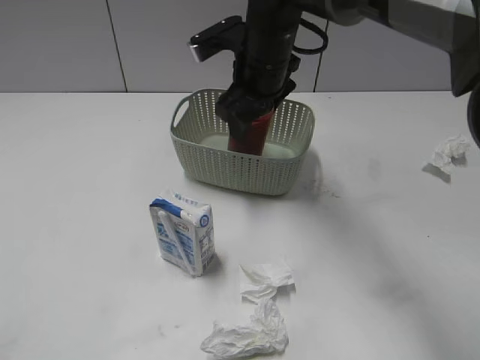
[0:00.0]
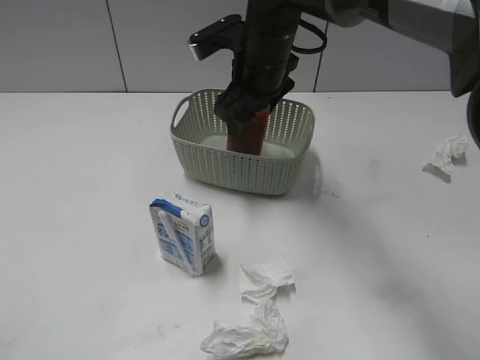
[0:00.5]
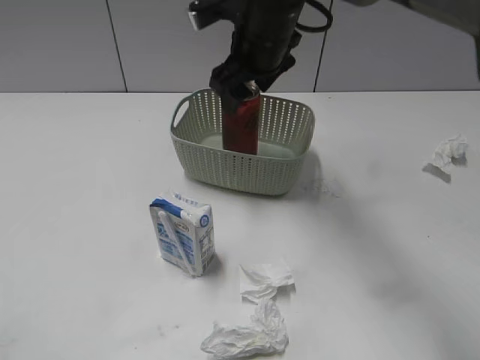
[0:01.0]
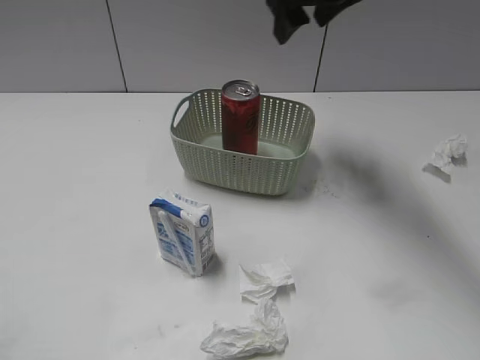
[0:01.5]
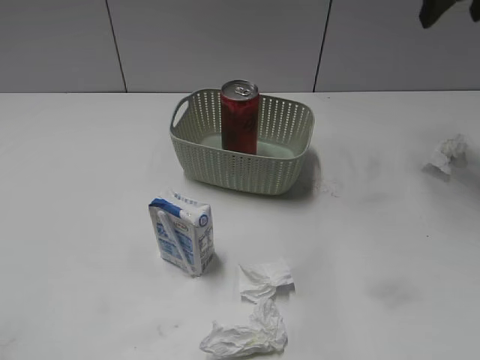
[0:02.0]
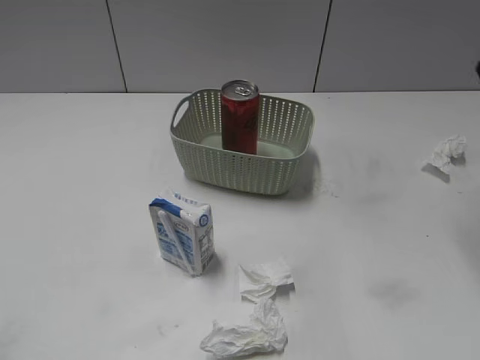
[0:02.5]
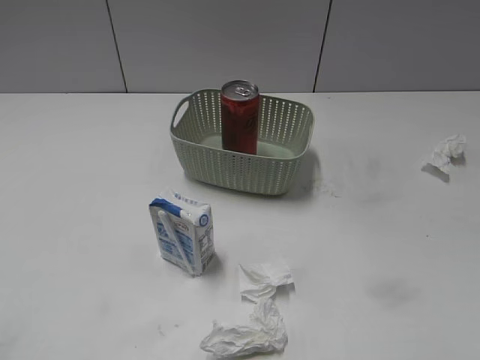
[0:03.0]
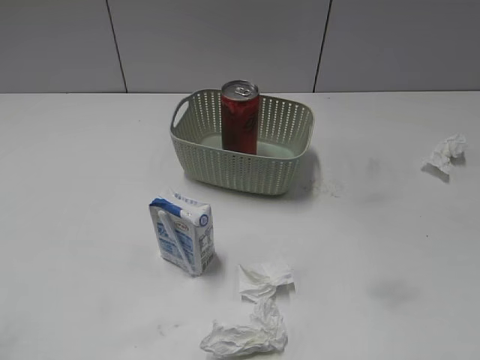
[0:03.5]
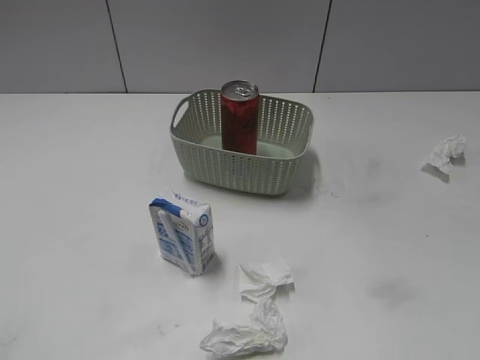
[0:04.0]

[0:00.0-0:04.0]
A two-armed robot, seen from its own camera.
0:00.0 to 0:02.0: The right gripper goes approximately 25 cm to the right and upward.
0:02.0 to 0:04.0: The right gripper is displaced backward by roughly 40 cm.
